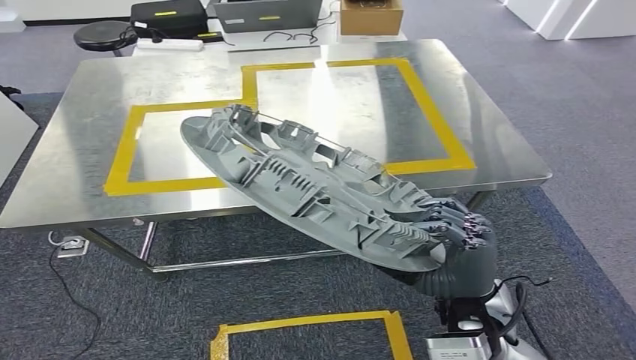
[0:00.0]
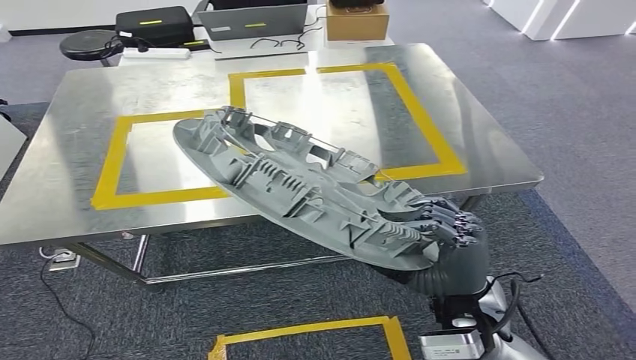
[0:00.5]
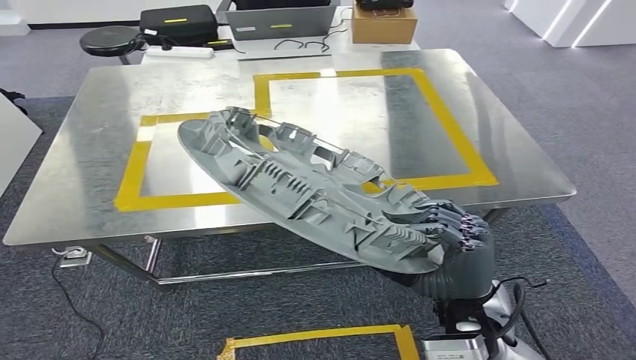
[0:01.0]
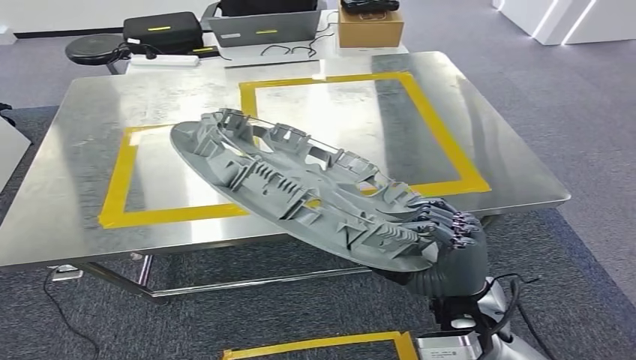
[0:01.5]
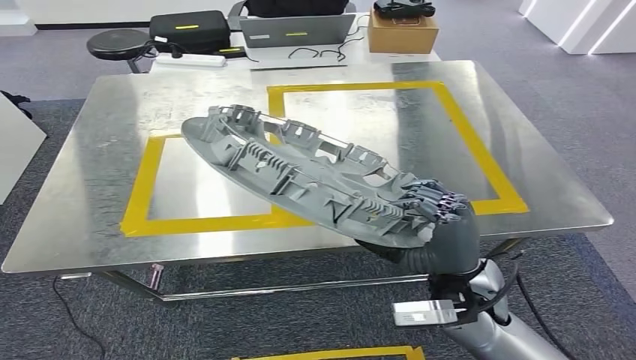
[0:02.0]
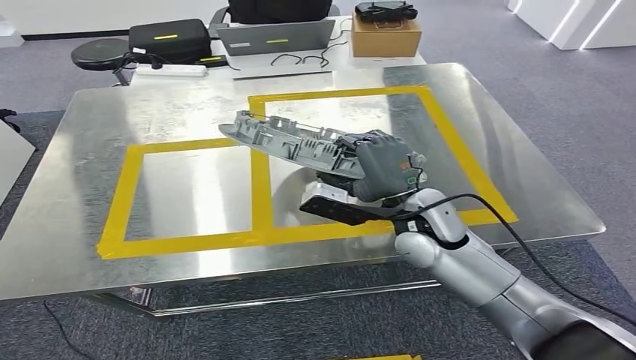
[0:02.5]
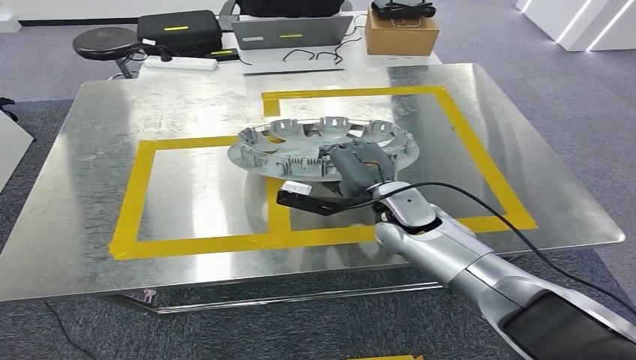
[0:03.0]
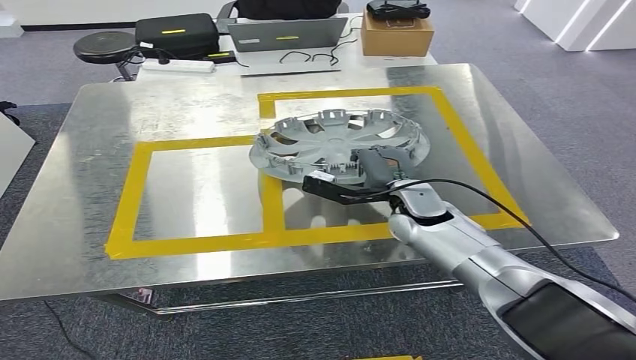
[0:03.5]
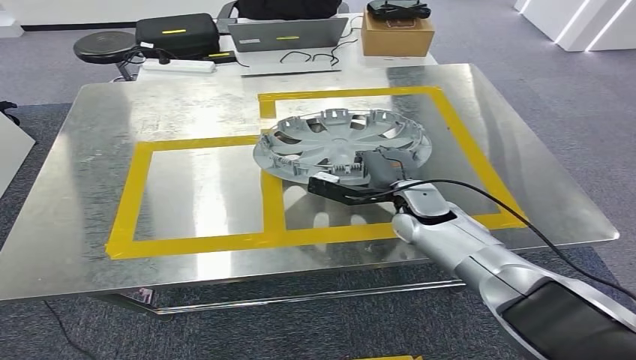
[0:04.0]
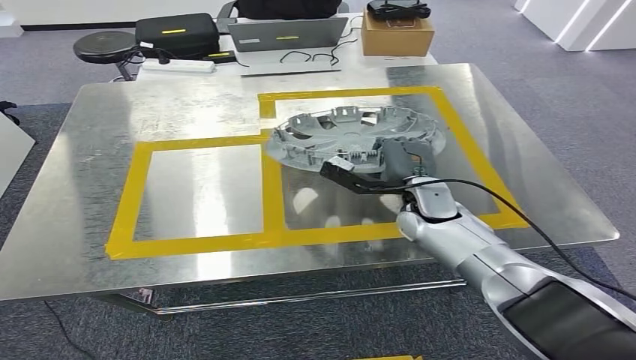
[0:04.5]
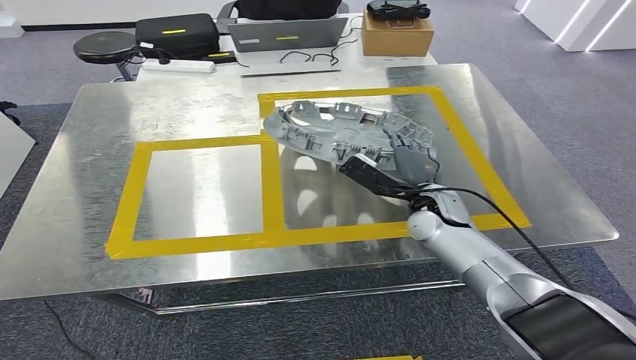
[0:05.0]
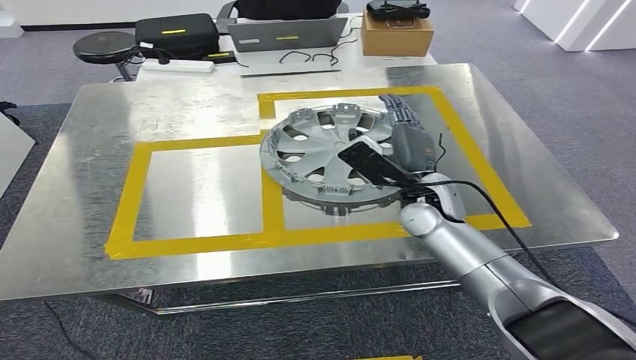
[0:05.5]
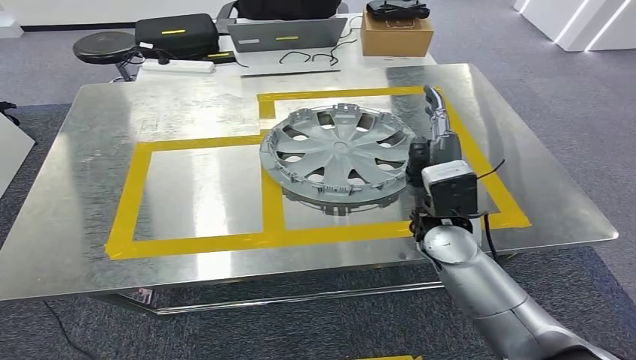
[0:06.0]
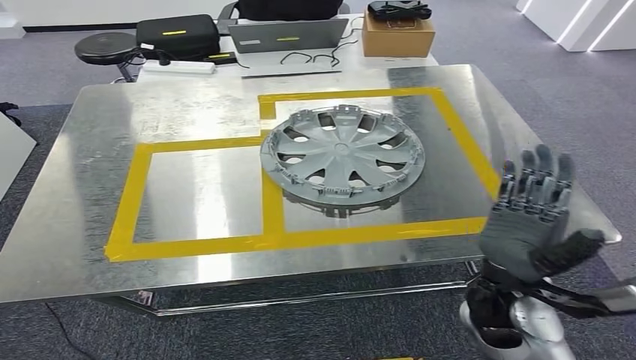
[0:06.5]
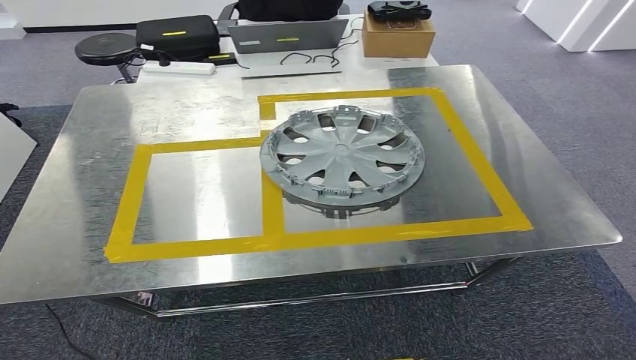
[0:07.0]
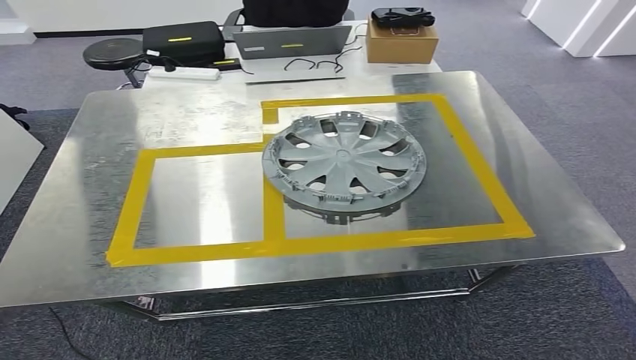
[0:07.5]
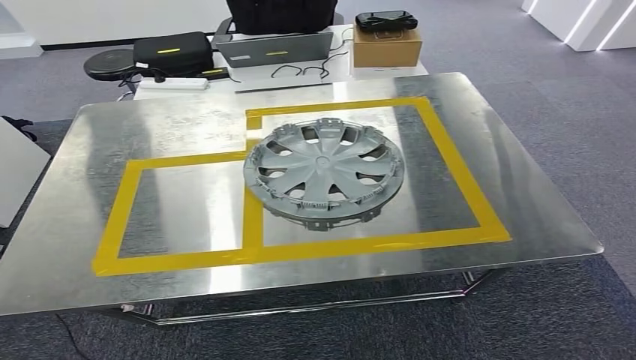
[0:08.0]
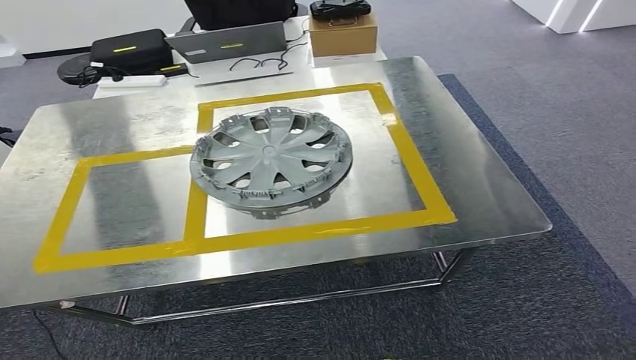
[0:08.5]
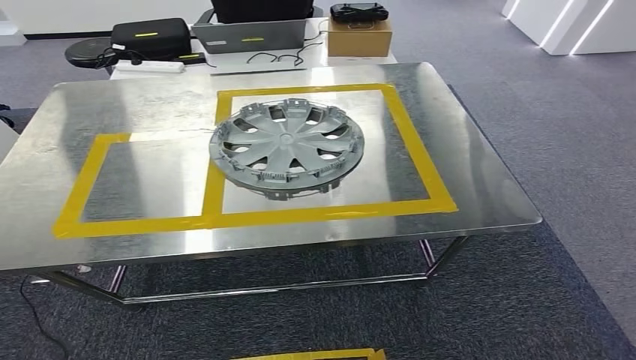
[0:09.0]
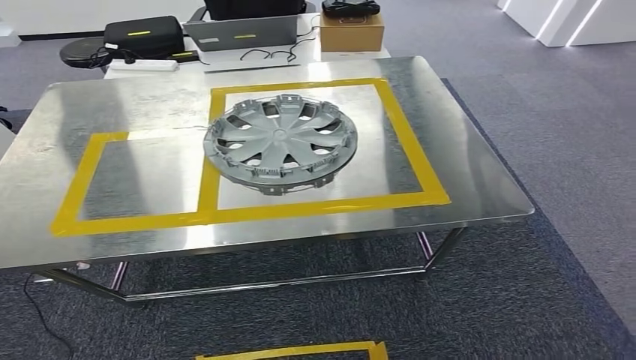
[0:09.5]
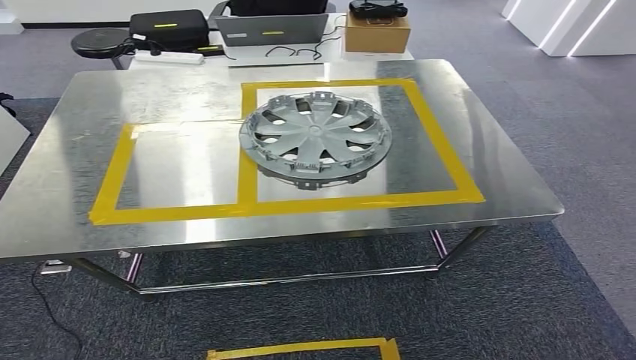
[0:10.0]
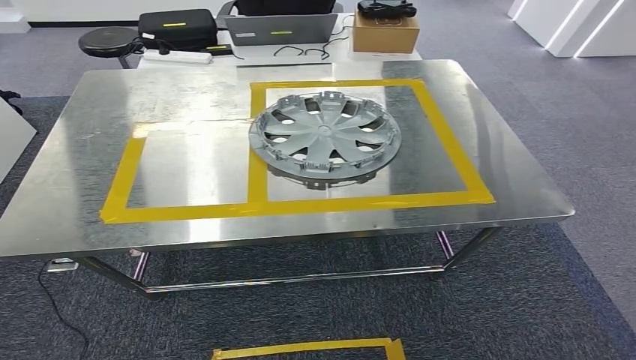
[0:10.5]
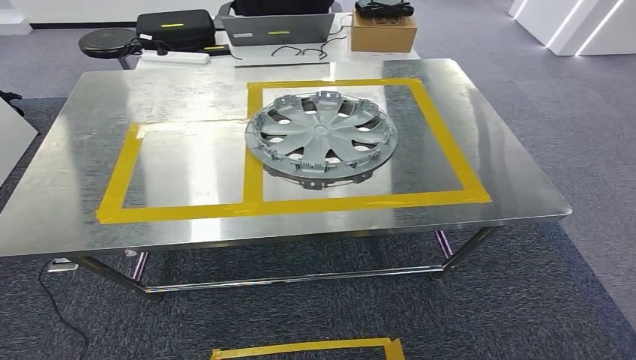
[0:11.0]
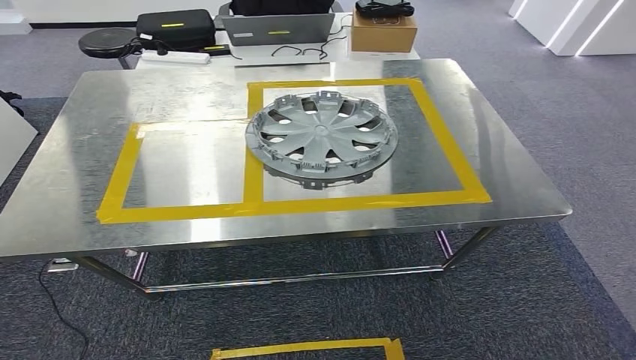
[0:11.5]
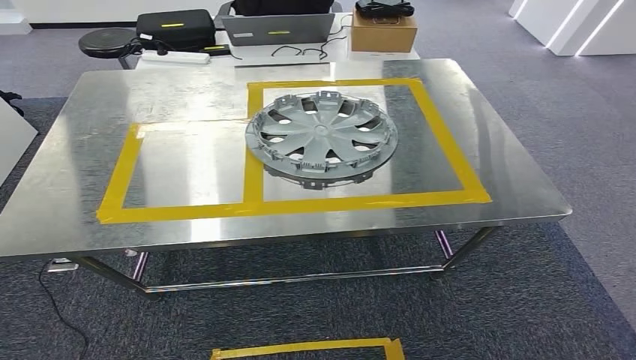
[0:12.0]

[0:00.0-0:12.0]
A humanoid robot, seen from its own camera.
Step, 0:01.0 to 0:08.5: Insert the small component into the corresponding slot on the workbench.
0:04.0 to 0:06.0: The right hand travels backward and upward by approximately 10 cm.
0:10.0 to 0:12.0: Both hands stay put.

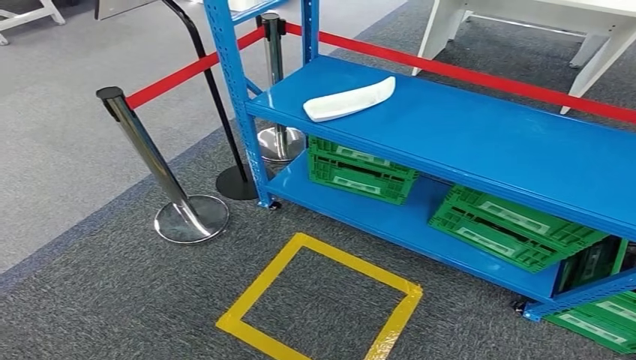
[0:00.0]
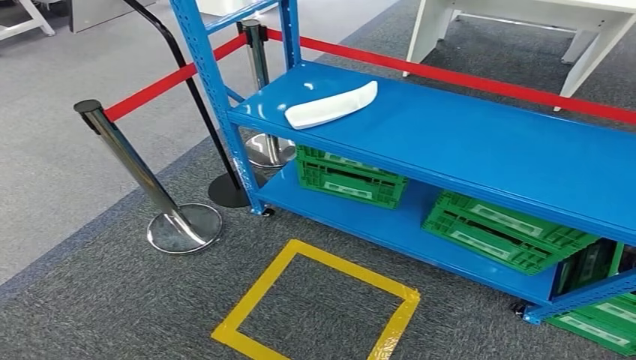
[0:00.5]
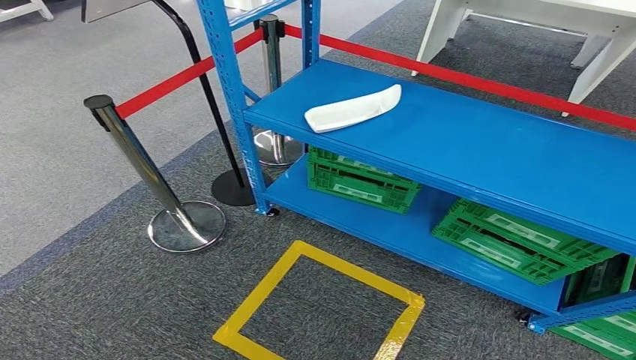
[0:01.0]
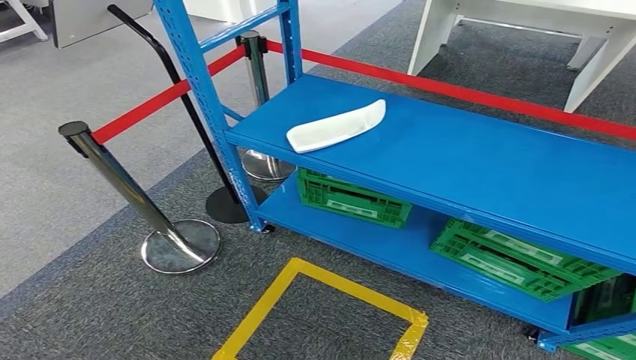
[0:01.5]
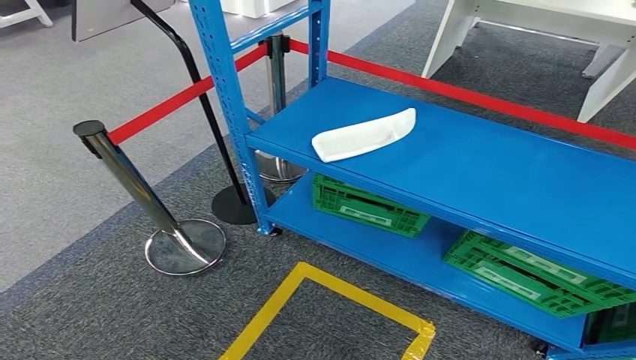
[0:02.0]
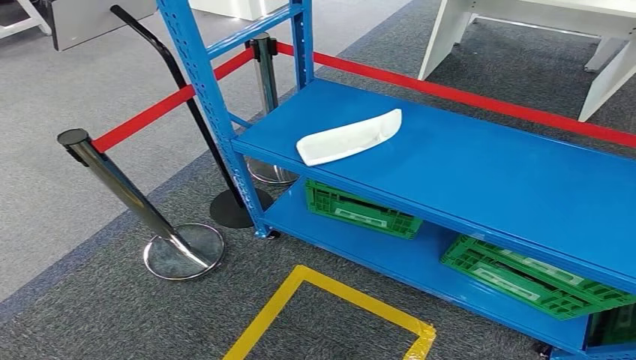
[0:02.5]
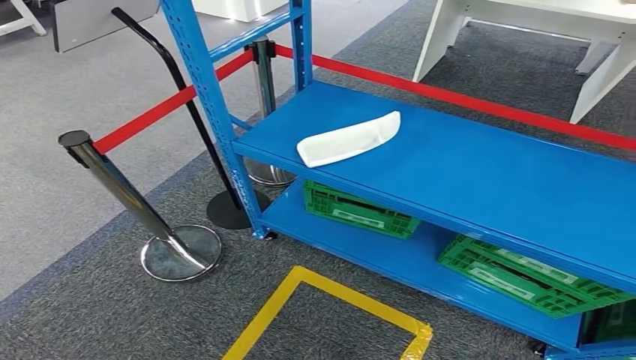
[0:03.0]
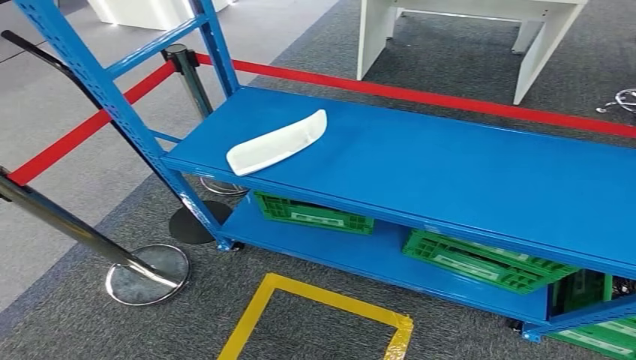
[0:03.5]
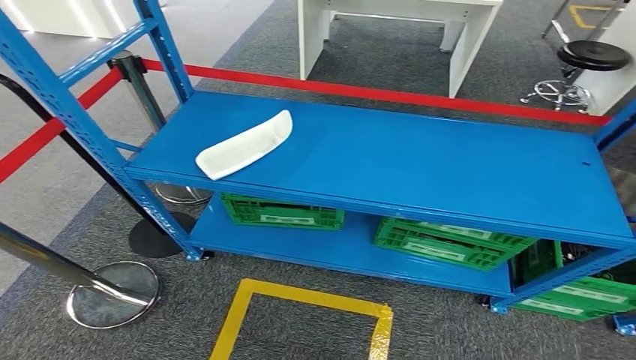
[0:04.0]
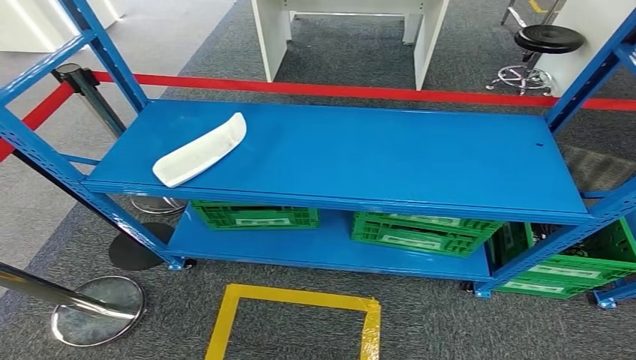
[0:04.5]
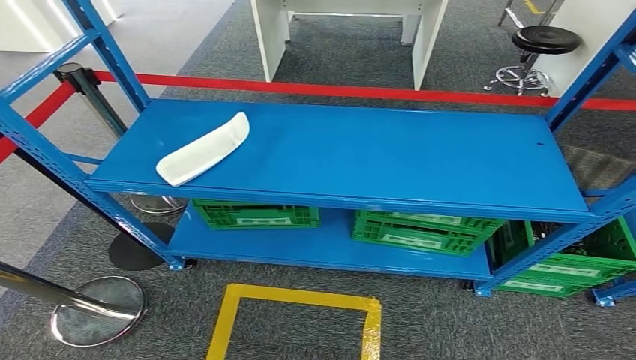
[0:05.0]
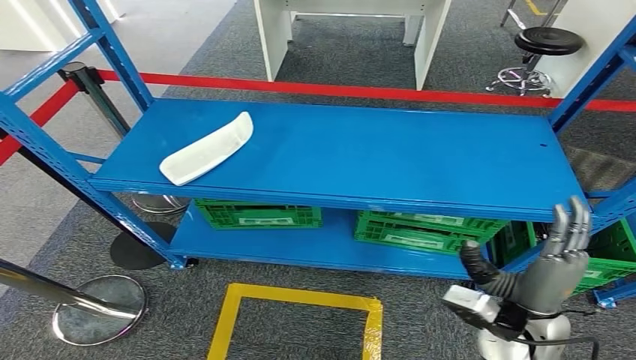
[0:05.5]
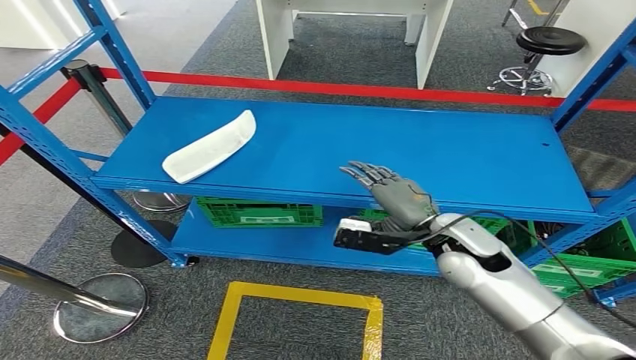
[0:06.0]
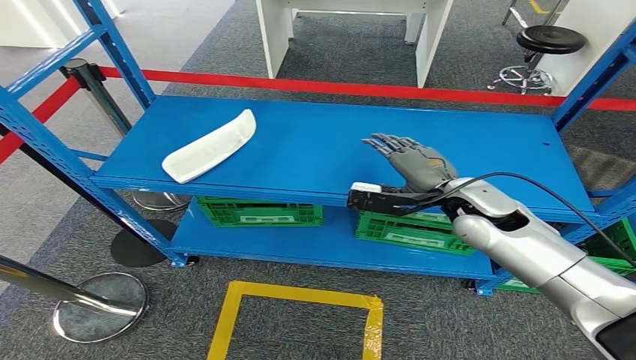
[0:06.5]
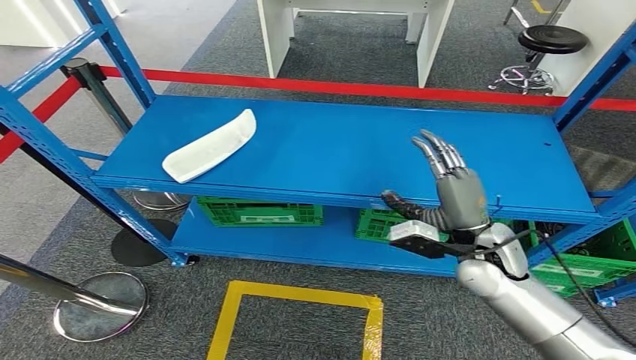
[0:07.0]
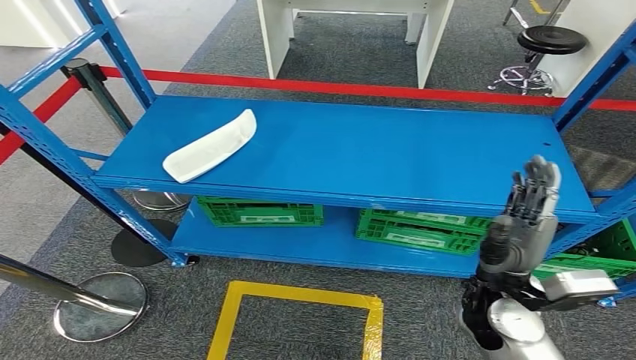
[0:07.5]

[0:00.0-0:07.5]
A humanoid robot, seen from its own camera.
Step, 0:00.0 to 0:07.5: Return to the initial position at the workbench.
0:05.5 to 0:07.5: The right hand goes forward and returns, about 20 cm each way.
